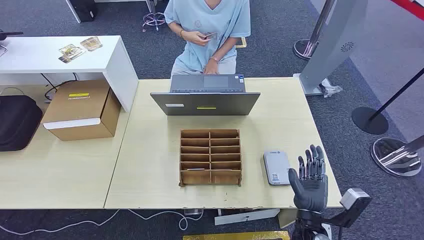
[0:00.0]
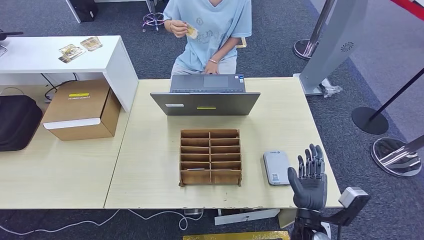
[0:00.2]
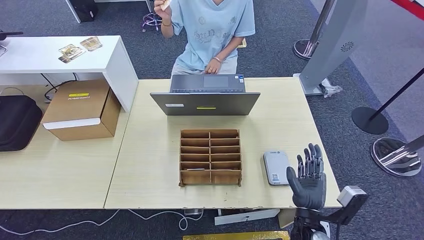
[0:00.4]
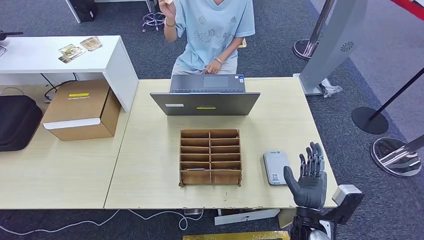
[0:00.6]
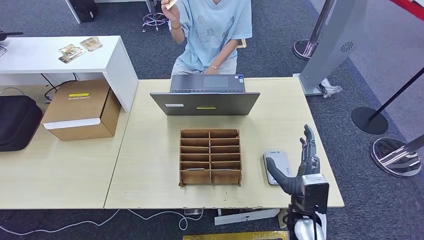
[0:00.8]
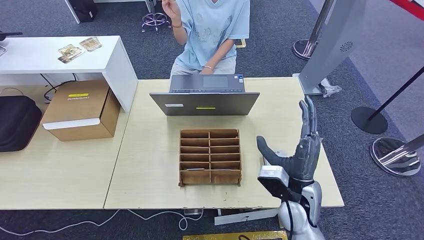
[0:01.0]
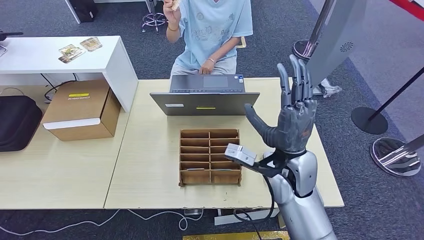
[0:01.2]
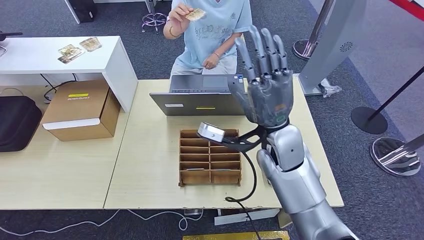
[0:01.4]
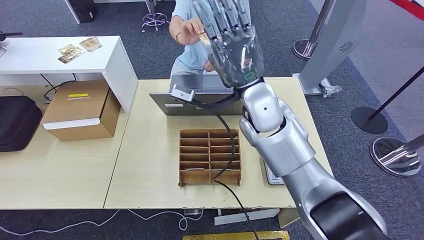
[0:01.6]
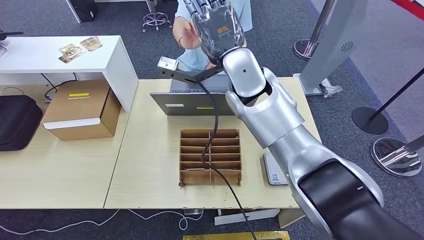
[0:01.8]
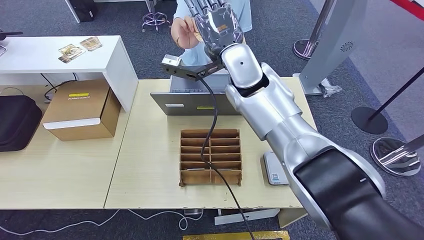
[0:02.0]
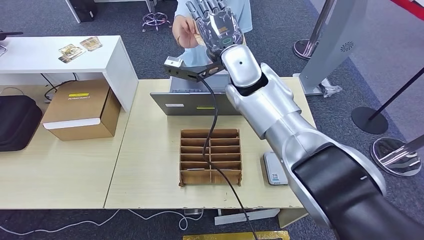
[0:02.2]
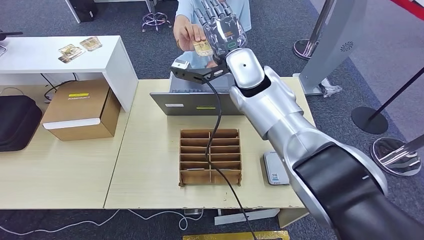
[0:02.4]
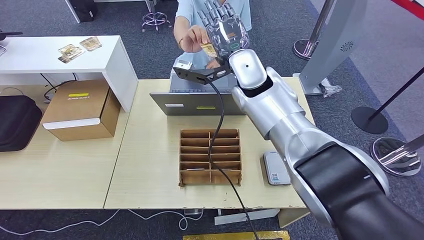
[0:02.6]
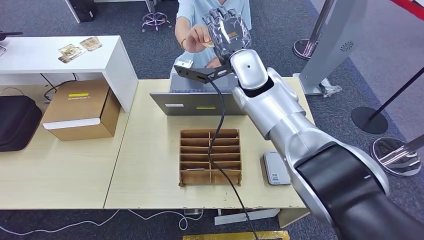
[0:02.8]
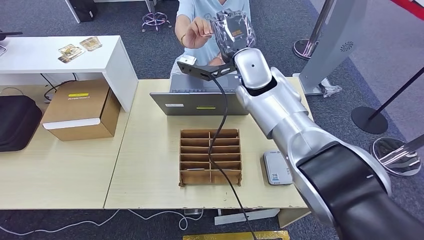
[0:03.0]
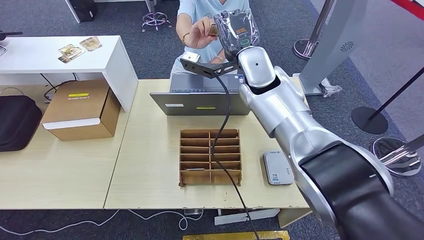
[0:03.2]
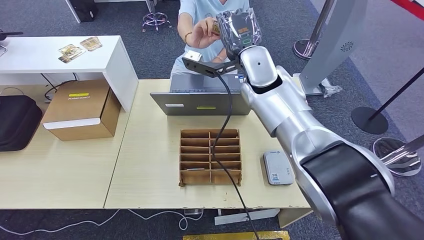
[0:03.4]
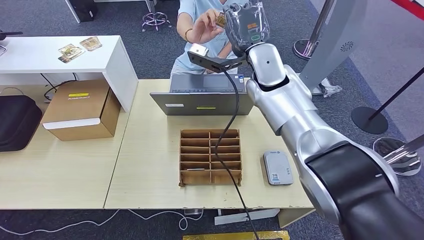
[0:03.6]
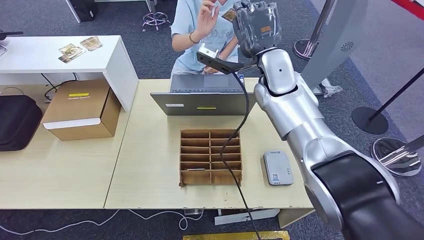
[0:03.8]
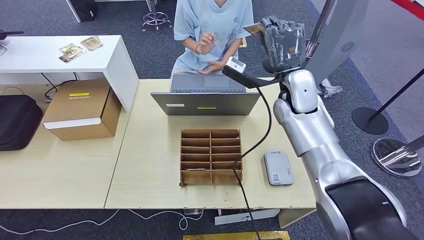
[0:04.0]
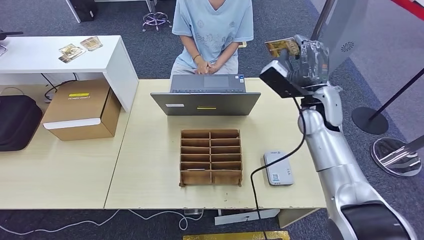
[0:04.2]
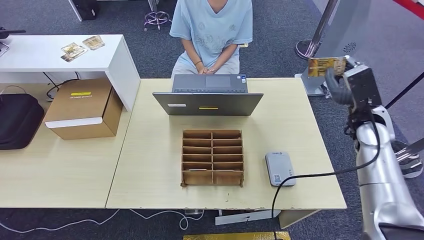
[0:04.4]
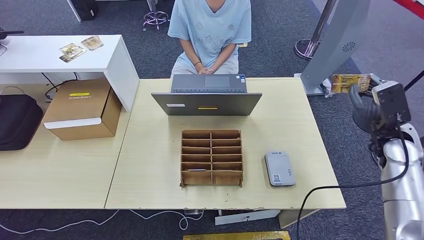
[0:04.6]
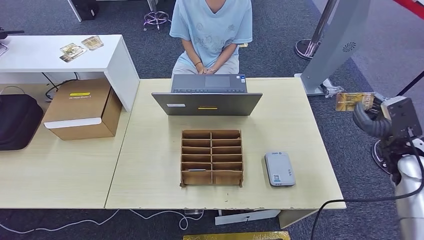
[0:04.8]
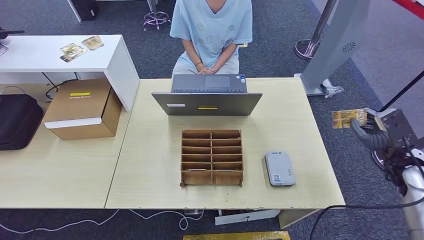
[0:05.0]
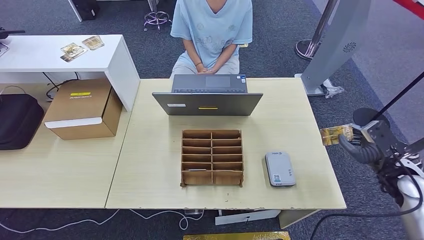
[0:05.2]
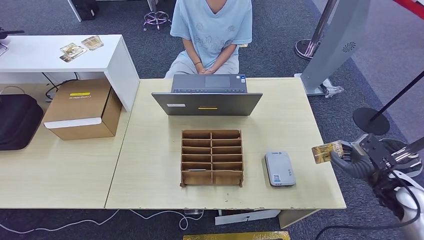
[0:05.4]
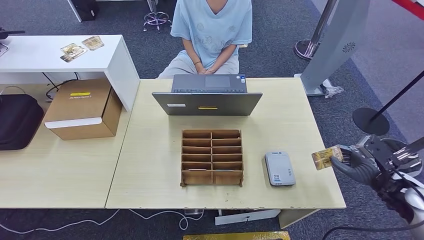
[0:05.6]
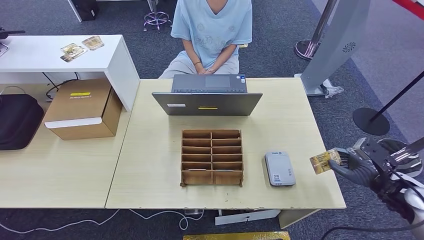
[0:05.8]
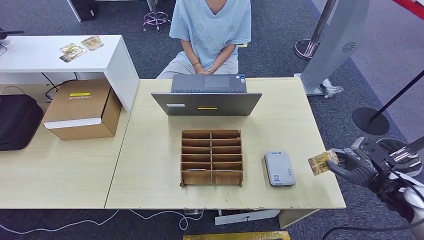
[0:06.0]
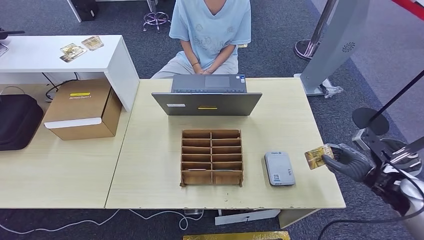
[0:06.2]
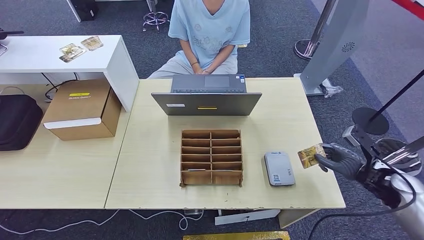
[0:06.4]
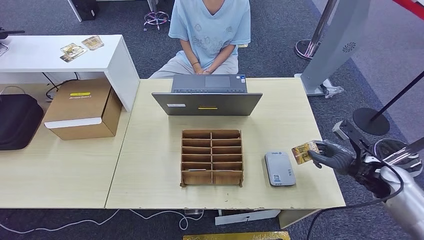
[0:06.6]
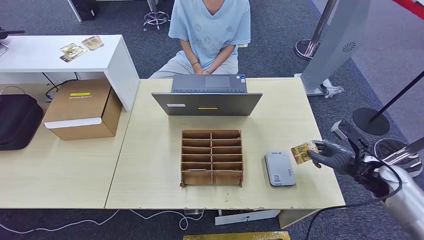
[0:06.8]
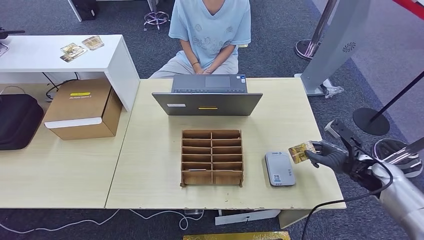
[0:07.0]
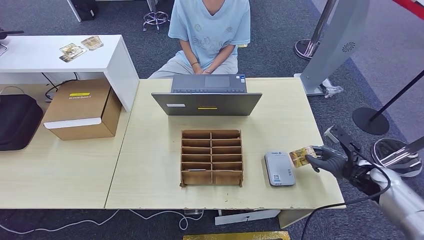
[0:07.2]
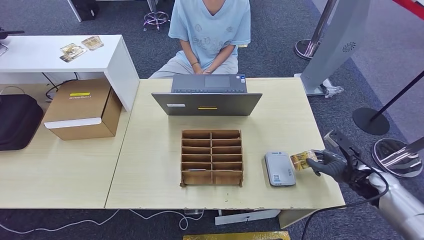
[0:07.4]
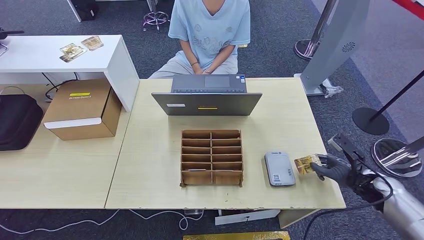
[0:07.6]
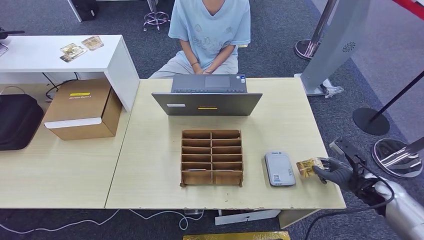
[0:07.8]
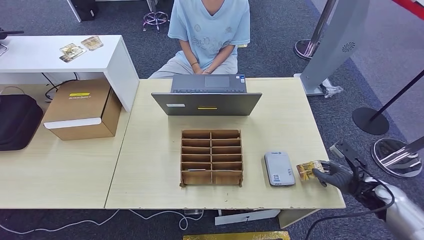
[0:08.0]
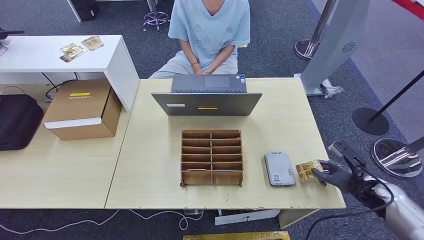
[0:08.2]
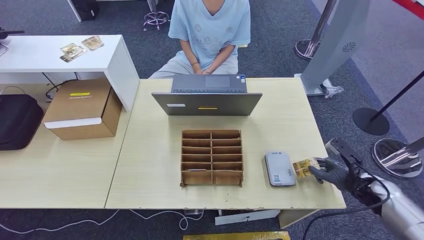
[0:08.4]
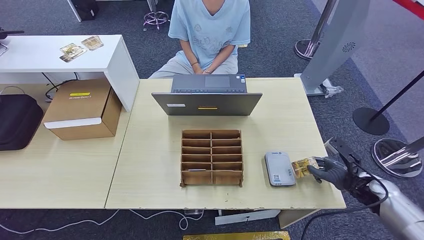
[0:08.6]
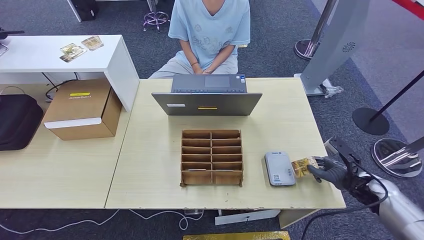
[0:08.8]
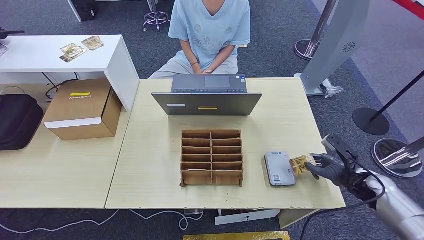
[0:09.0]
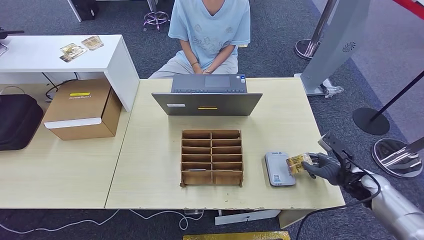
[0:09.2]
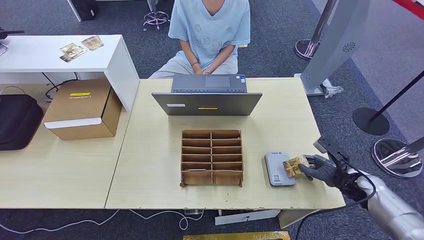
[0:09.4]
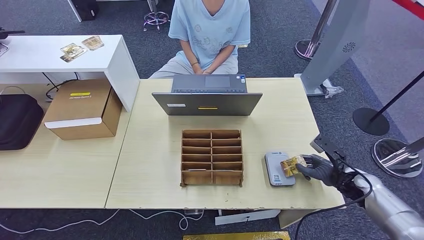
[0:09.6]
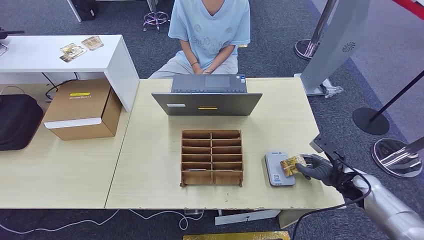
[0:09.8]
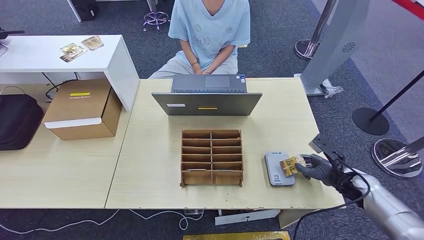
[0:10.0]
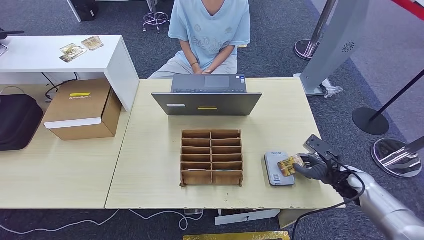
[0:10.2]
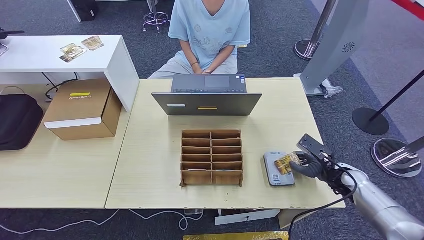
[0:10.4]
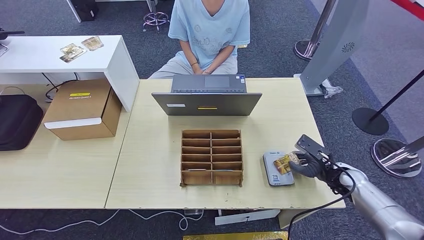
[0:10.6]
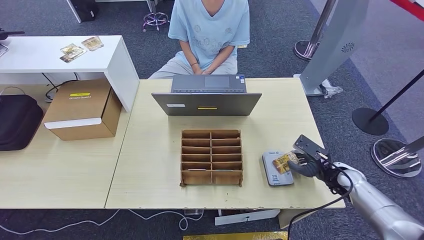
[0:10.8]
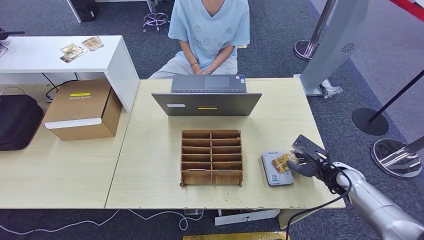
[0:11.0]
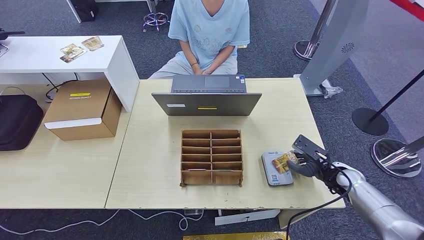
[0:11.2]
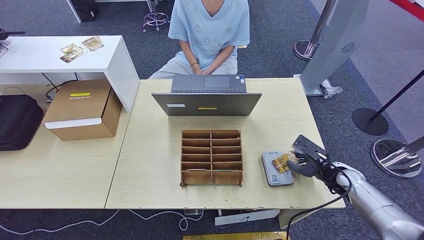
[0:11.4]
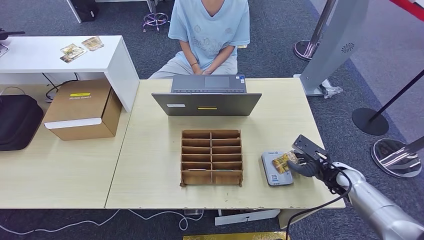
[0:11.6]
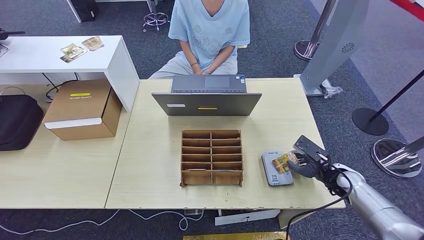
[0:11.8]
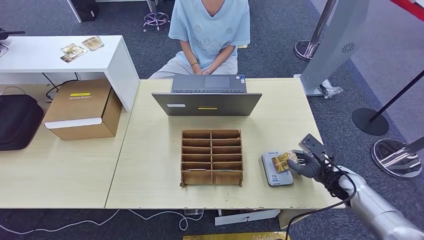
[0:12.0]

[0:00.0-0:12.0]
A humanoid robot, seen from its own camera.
Step, 0:00.0 to 0:04.4: Take the ID card from the person's hand.
0:01.6 to 0:03.0: The right hand goes roughly 5 cm forward.
0:04.4 to 0:06.0: The right hand travels backward, to the right and downward by some 20 cm.
0:06.0 to 0:07.6: The right hand travels downward by approximately 5 cm.
0:07.6 to 0:09.0: The hands stay close to where they were, moving slightly.
0:09.0 to 0:10.4: The right hand shifts by roughly 5 cm.
0:10.4 to 0:12.0: The hands stay close to where they were, moving slightly.

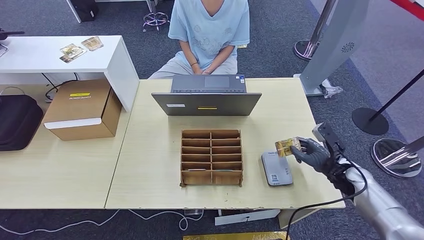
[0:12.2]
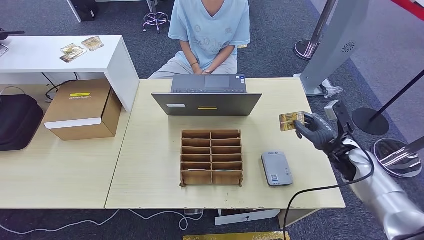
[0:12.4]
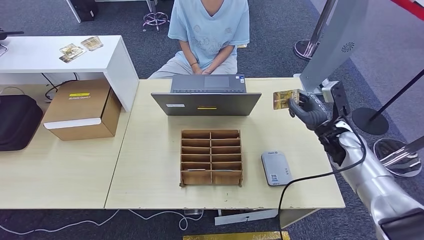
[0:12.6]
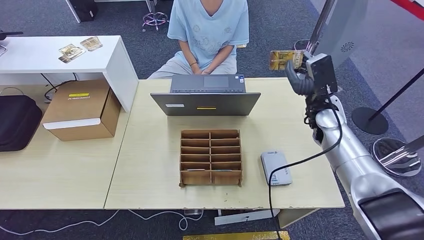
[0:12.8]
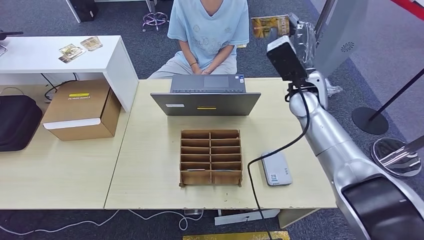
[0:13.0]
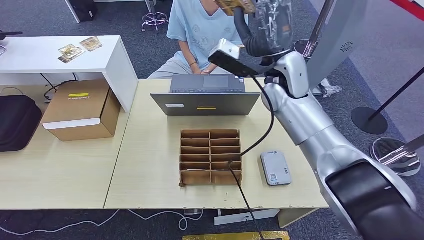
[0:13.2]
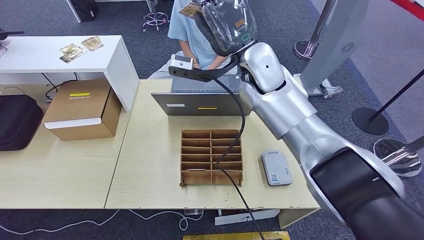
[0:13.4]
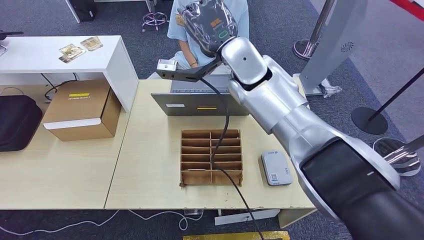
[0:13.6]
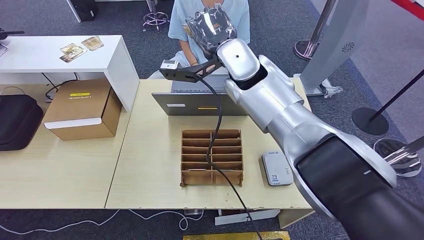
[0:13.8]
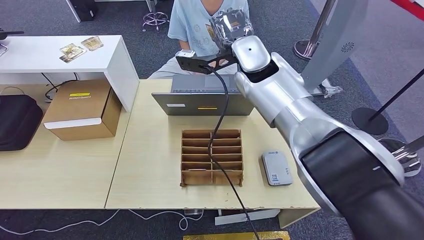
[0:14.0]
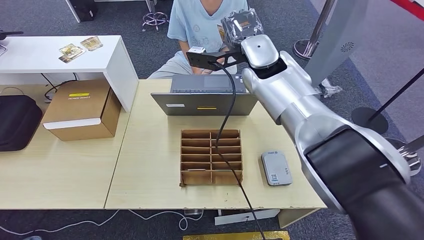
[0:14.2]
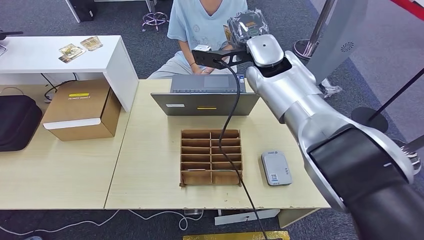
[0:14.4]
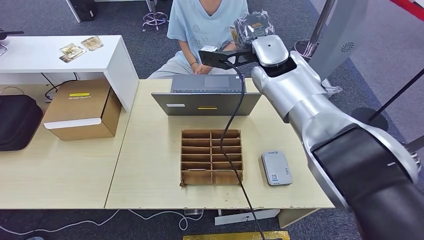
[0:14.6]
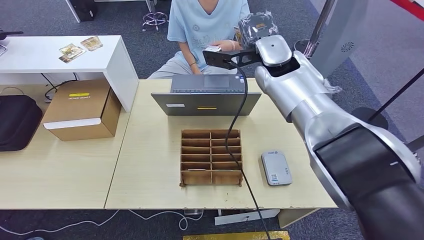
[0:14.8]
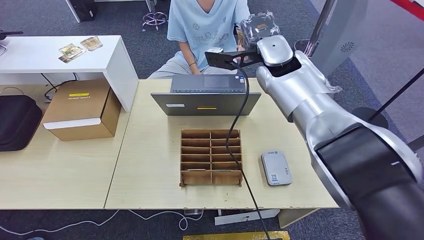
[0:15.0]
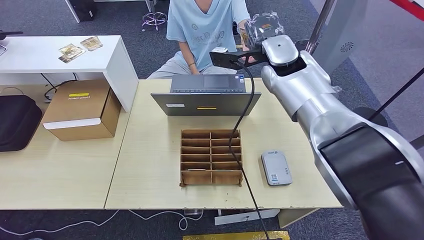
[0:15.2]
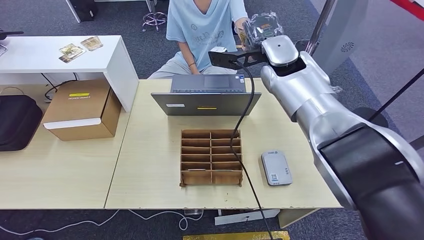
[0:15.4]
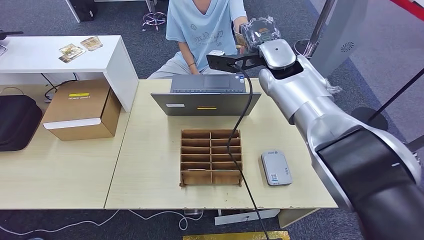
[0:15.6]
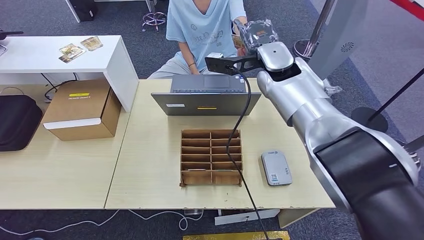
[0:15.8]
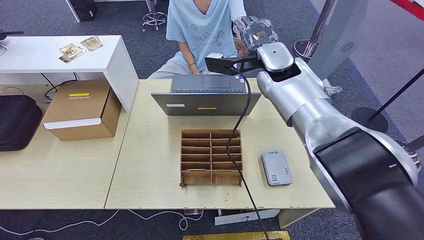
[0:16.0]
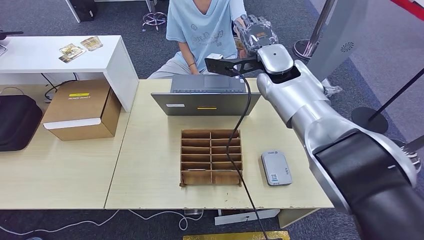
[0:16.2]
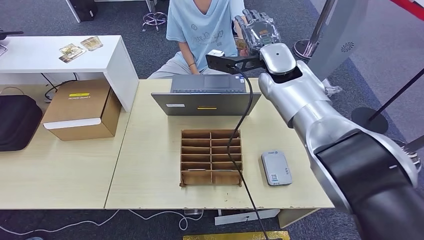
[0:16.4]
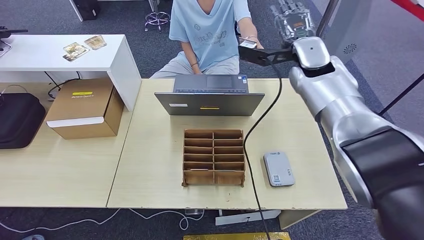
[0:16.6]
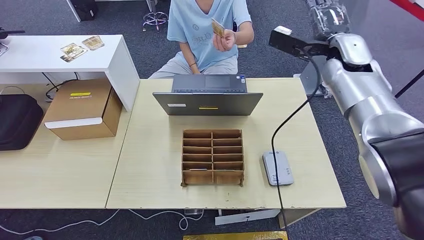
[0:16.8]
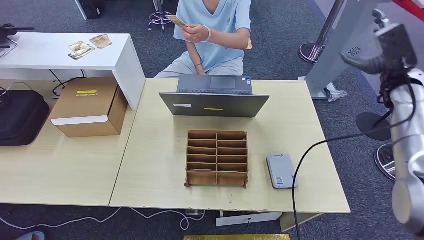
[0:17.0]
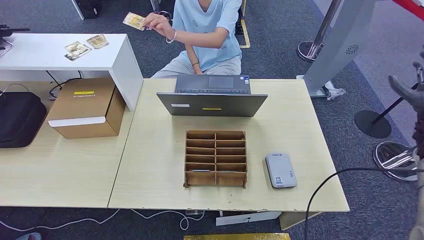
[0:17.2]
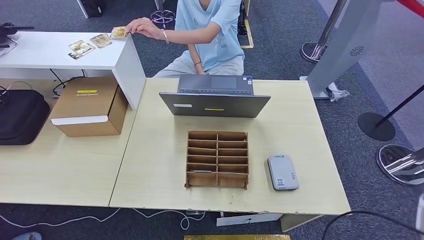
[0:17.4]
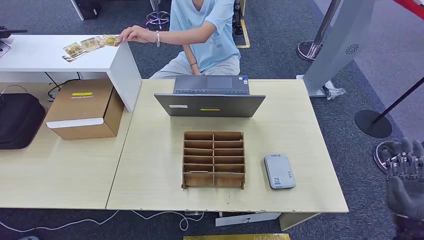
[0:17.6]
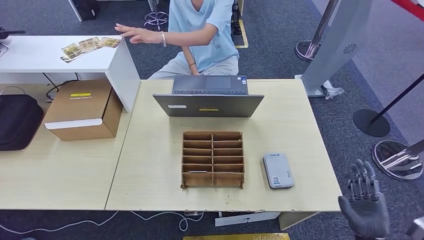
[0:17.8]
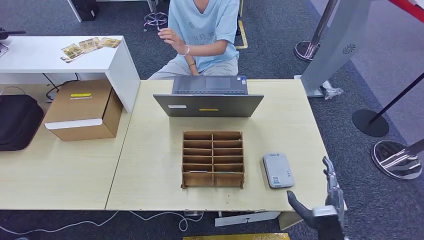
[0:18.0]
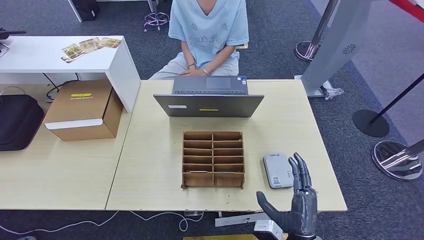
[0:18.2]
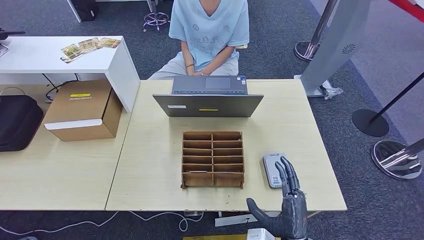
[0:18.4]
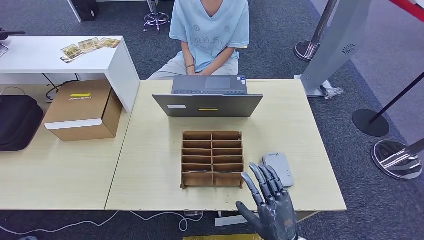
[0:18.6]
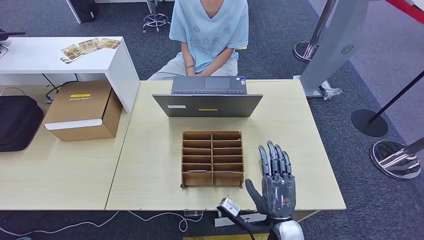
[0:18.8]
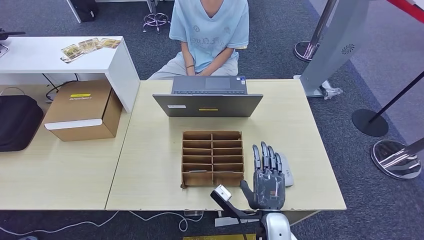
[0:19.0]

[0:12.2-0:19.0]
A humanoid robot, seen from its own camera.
Step, 0:12.8 to 0:18.0: Hand the ID card to the person.
0:12.2 to 0:13.6: The right hand is displaced to the left and upward by roughly 40 cm.
0:13.6 to 0:15.0: The right hand is displaced to the right by roughly 5 cm.
0:15.0 to 0:16.2: The hands make only small movements.
0:17.6 to 0:19.0: The right hand goes about 30 cm to the left.
